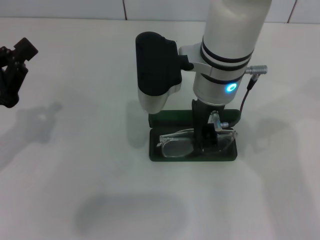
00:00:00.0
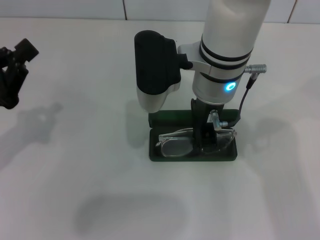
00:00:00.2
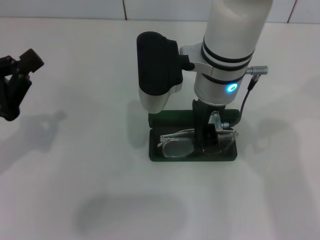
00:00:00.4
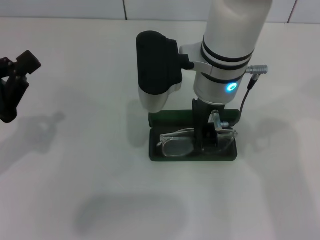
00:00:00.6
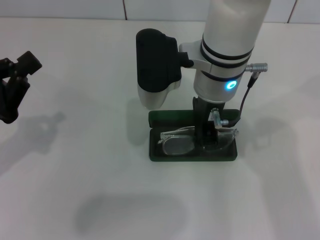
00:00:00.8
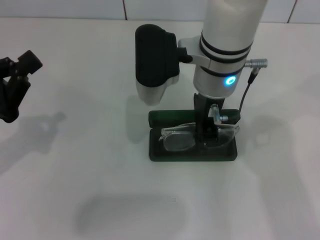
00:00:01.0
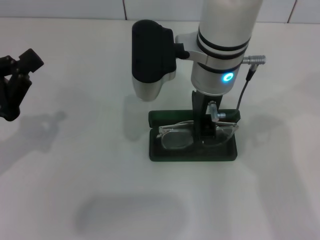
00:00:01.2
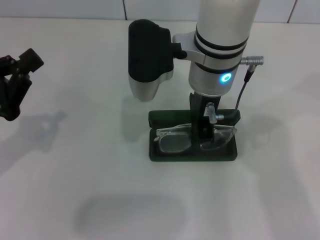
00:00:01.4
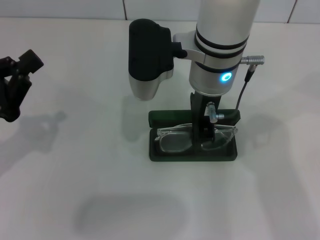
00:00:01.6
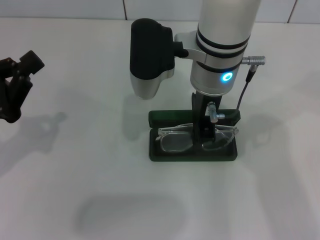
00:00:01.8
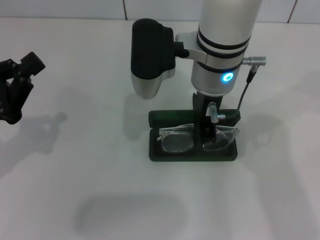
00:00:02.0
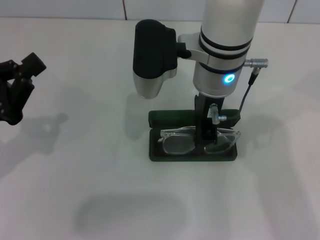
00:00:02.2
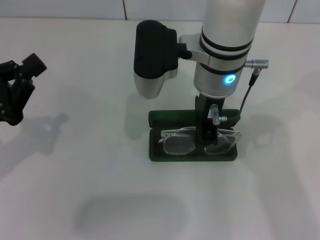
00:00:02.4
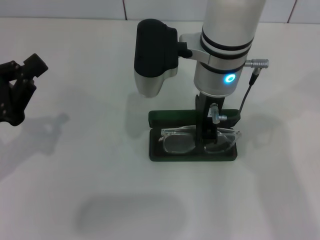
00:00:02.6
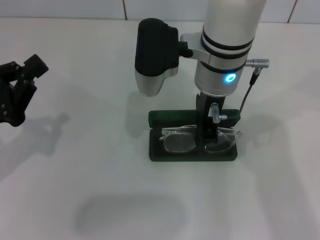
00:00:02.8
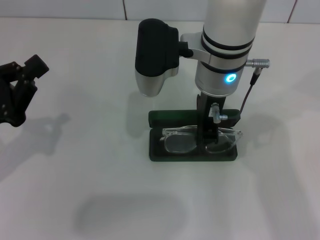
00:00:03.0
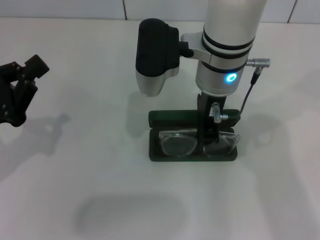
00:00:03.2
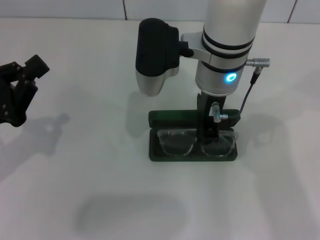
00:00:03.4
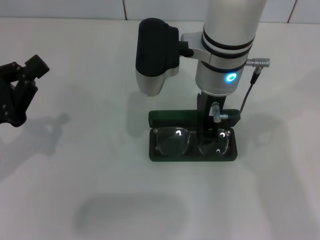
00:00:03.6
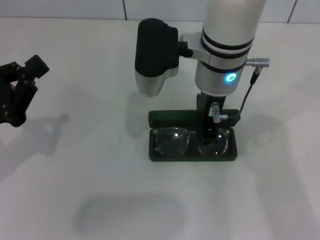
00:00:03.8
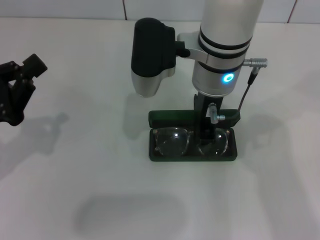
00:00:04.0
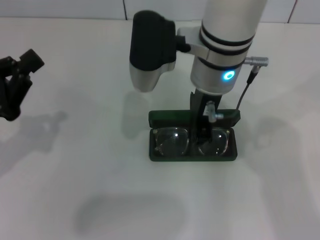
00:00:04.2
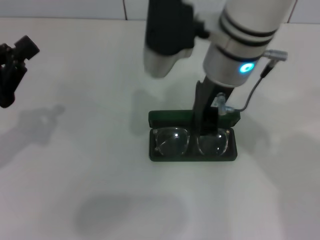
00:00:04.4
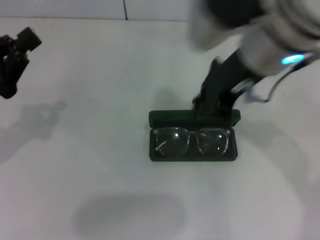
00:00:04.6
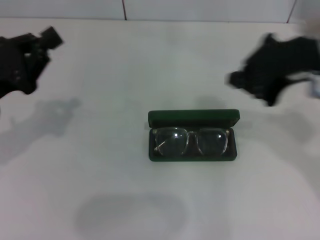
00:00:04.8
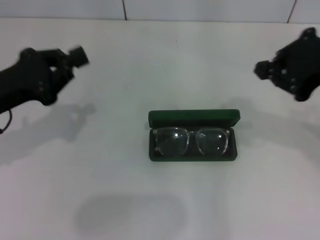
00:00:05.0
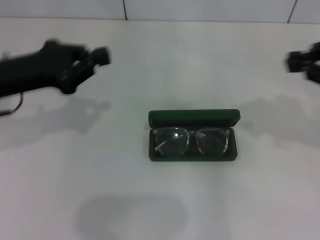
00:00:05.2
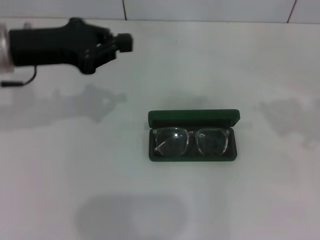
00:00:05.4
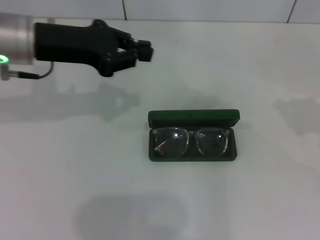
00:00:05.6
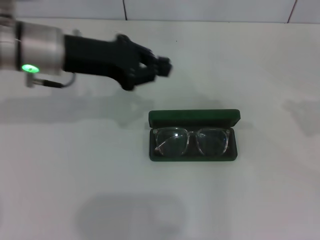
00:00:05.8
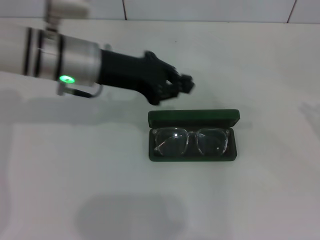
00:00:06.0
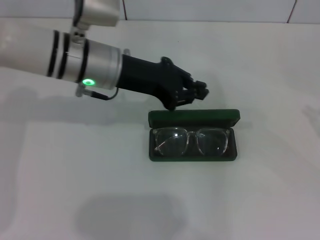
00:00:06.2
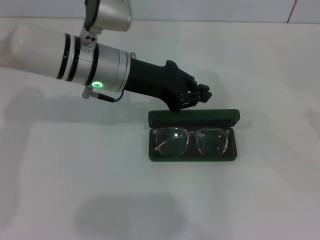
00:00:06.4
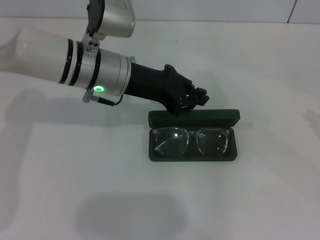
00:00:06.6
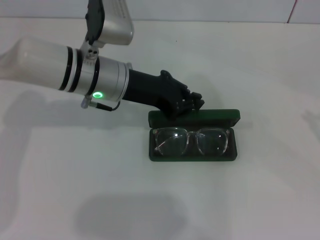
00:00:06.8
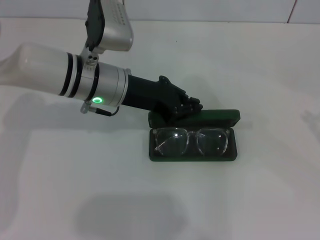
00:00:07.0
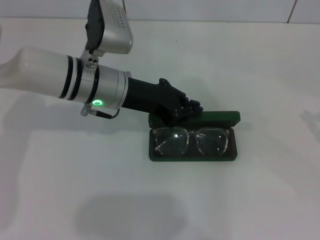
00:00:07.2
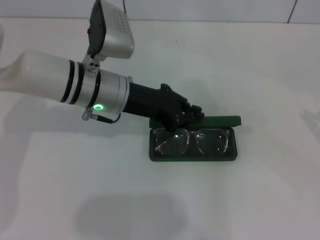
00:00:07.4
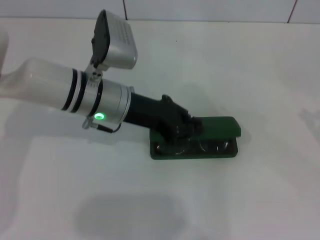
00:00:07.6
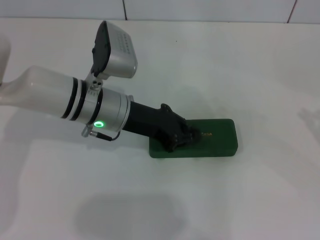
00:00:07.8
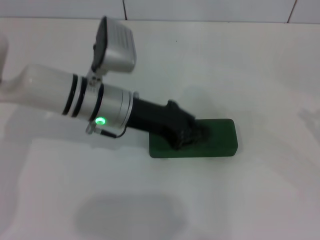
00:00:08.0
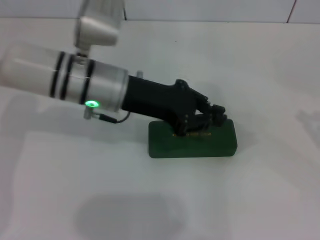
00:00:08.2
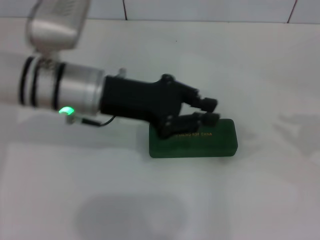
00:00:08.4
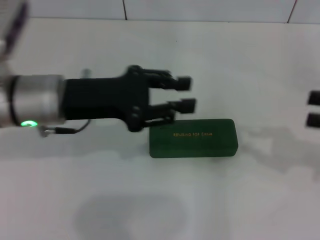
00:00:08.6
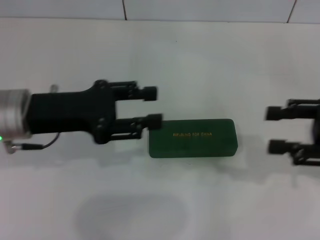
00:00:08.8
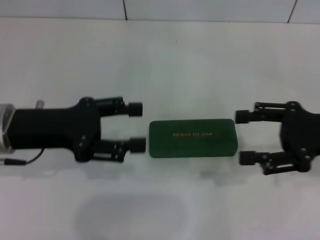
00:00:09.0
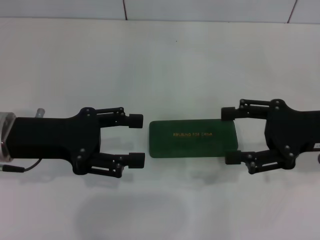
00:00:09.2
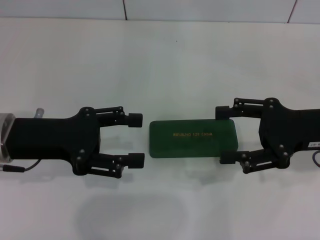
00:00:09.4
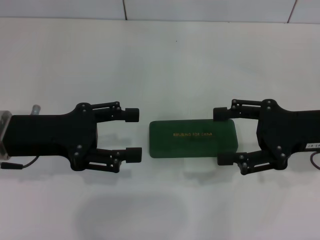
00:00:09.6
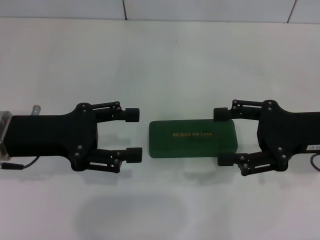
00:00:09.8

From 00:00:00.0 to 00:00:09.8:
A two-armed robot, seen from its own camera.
Step, from 00:00:00.0 to 00:00:03.6: Put the glasses into the case with your right hand.
Step, from 00:00:03.8 to 00:00:07.6: Close the glasses case with your left hand.
From 00:00:00.0 to 00:00:01.4: The grippers stay close to where they were, moving slightly.
From 00:00:01.4 to 00:00:02.8: Both grippers stay put.
From 00:00:02.8 to 00:00:04.2: The grippers stay close to where they were, moving slightly.
From 00:00:04.2 to 00:00:05.6: The right gripper moves to the right, about 35 cm; the left gripper heads forward, to the right and upward, covering roughly 20 cm.
From 00:00:05.6 to 00:00:07.0: The right gripper changes place by roughly 5 cm; the left gripper shifts about 10 cm to the right and downward.
From 00:00:07.0 to 00:00:08.4: The left gripper moves some 5 cm.
From 00:00:08.4 to 00:00:09.8: The right gripper travels to the left by roughly 15 cm, and opens up, while the left gripper is displaced to the left and backward by approximately 10 cm, and opens.

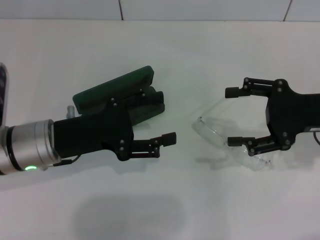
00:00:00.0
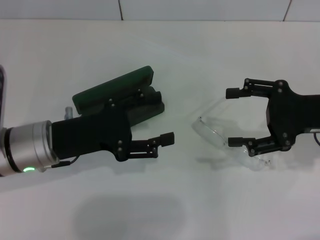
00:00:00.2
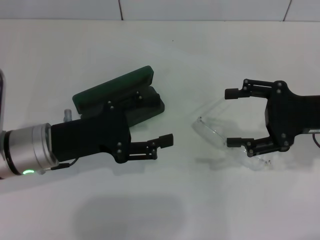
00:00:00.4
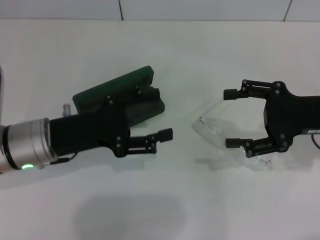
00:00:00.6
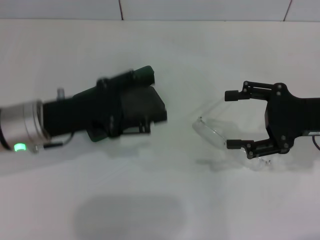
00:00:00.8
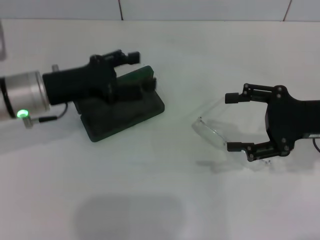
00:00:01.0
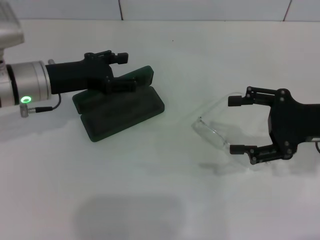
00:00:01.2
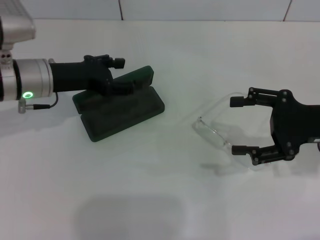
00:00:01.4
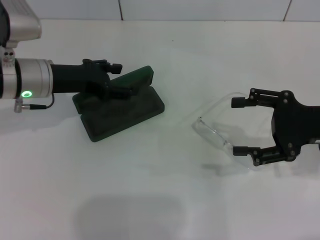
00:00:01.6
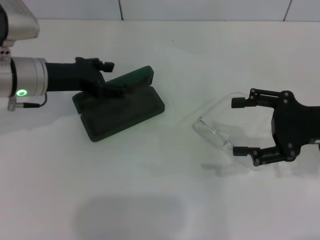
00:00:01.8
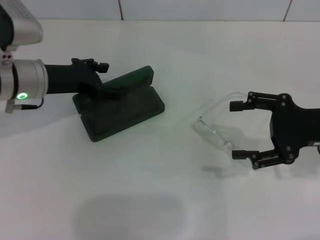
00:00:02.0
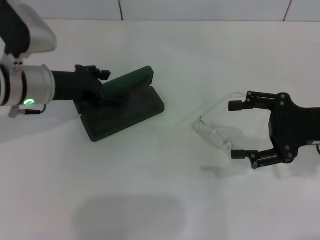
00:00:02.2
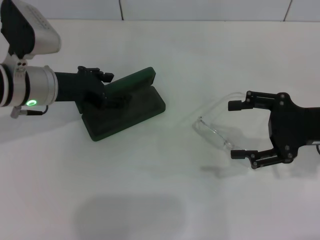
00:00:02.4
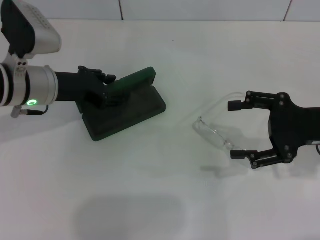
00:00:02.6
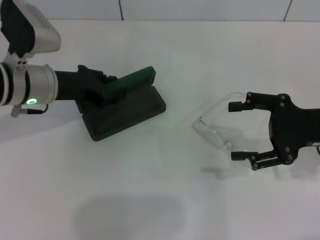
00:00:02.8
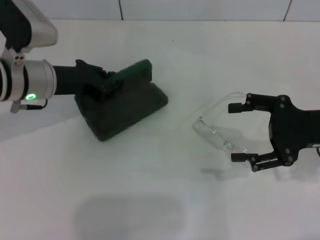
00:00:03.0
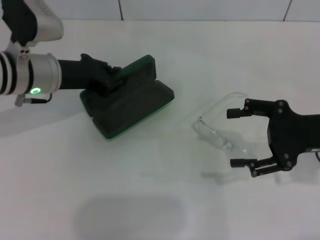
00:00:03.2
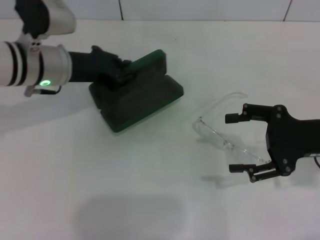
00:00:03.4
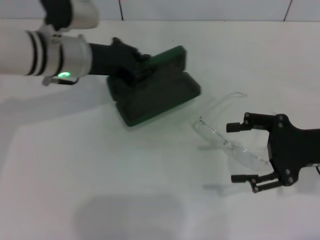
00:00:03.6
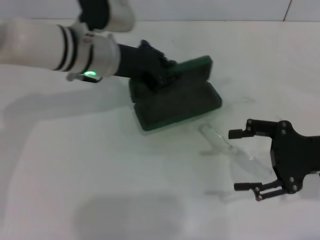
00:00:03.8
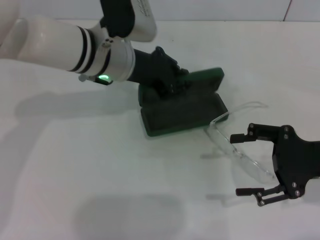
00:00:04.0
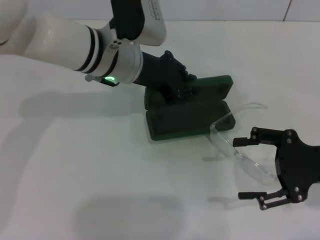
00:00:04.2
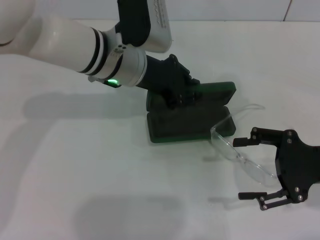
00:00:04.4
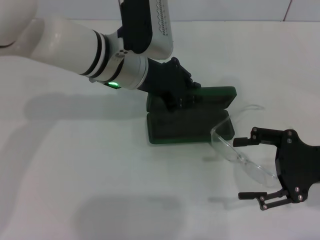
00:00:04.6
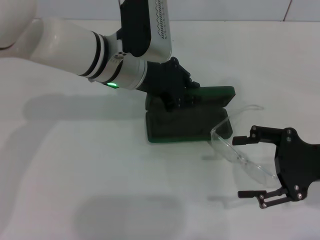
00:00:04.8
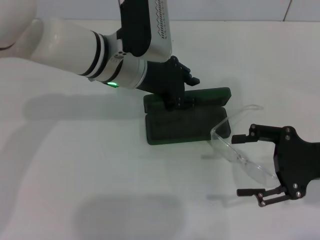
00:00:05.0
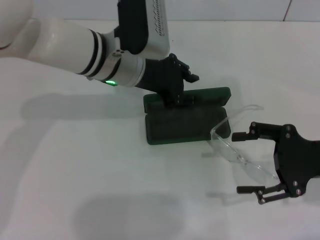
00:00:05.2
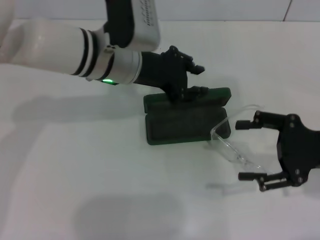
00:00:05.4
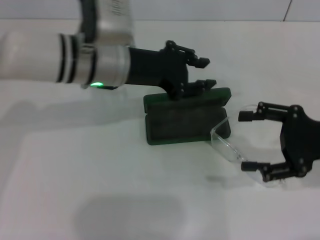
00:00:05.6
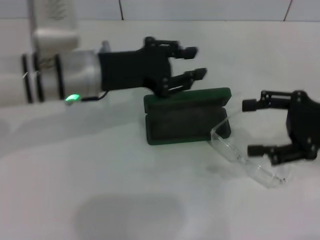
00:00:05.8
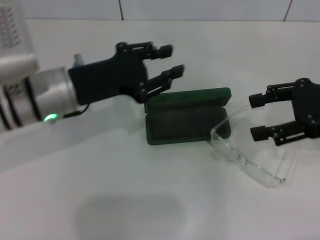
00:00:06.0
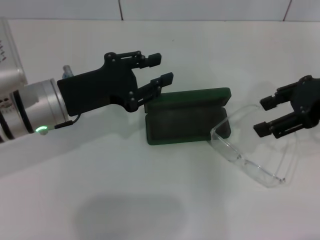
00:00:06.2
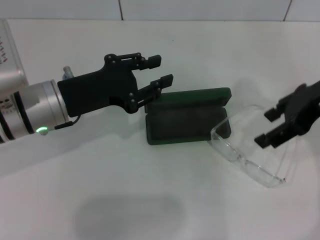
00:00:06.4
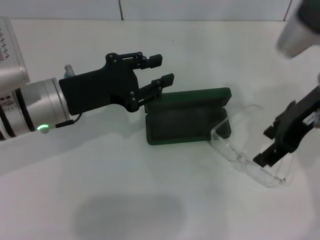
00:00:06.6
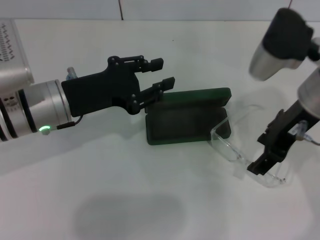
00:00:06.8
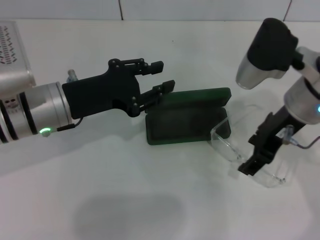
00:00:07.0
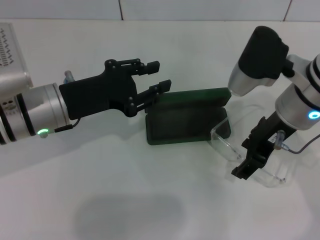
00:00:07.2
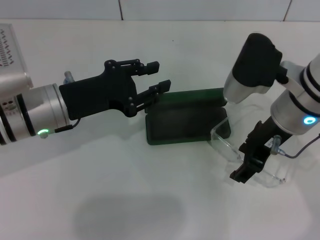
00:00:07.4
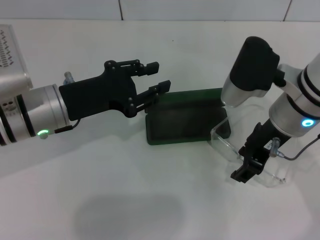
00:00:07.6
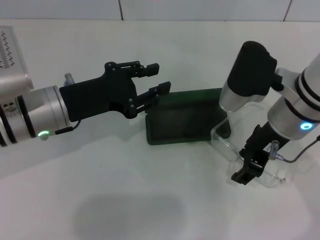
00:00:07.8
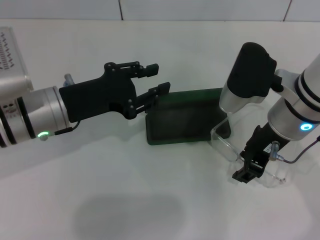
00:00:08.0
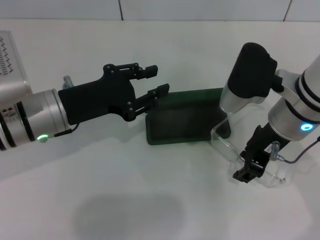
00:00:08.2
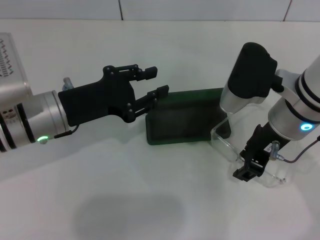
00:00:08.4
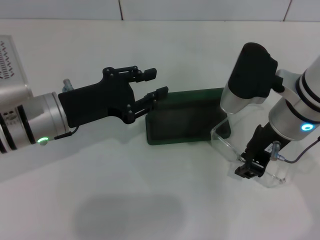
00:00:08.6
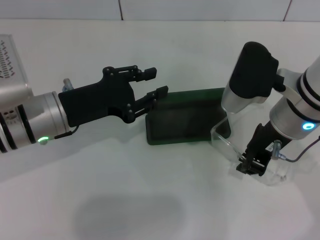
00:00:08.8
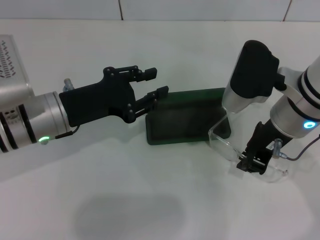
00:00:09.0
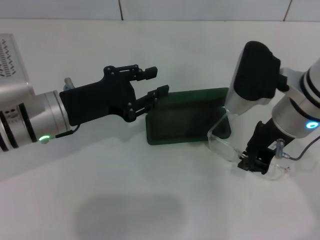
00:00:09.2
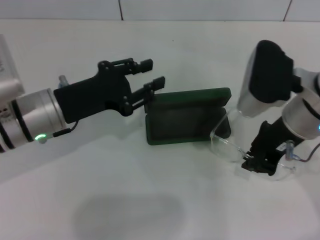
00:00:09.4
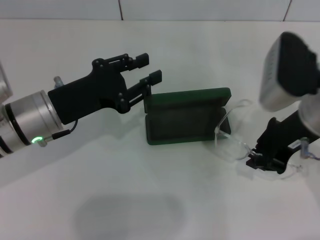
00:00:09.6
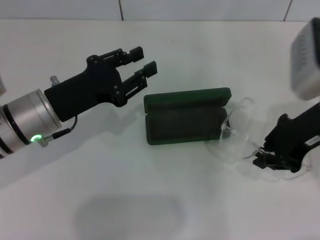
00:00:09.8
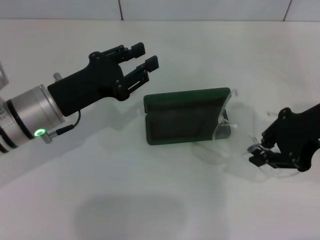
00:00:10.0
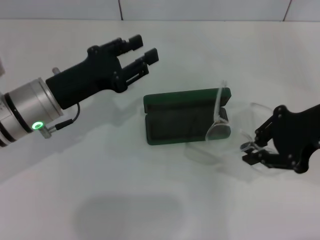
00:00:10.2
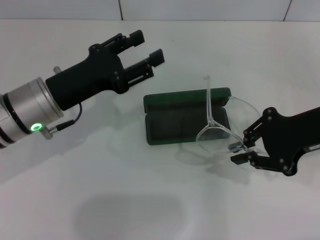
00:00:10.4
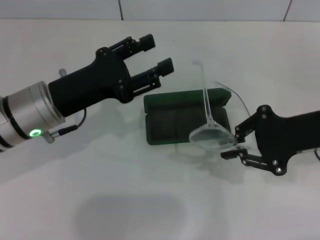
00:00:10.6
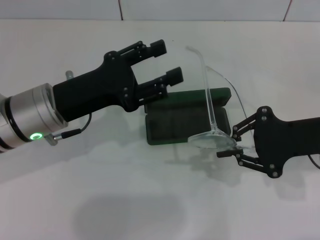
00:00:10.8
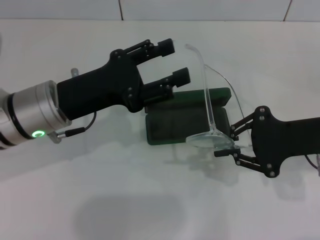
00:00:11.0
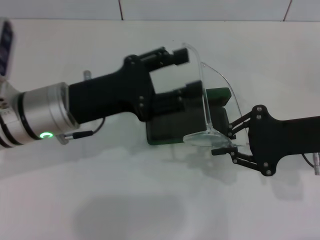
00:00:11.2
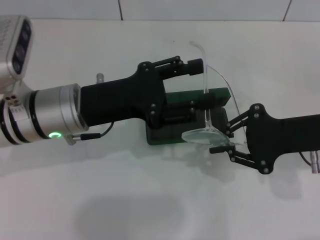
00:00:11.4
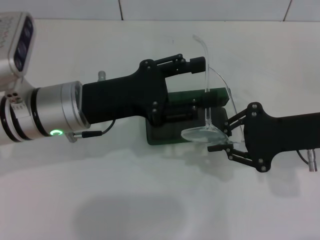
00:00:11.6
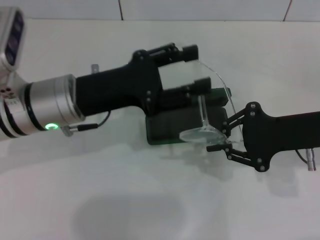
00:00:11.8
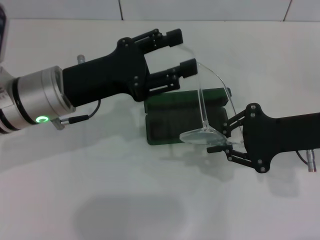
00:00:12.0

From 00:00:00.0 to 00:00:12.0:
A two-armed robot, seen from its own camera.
Step, from 00:00:00.0 to 00:00:02.8: Grab the glasses case with your left hand.
Step, from 00:00:03.2 to 00:00:04.8: Place the glasses case in the center of the table with your left hand.
Step, from 00:00:05.0 to 00:00:08.8: Grab the eyeglass frame with your right hand.
From 00:00:00.0 to 00:00:01.6: The left gripper is displaced forward by about 10 cm.
From 00:00:01.6 to 00:00:03.0: The left gripper closes its fingers.
From 00:00:03.0 to 00:00:04.4: The left gripper is displaced to the right by roughly 15 cm.
From 00:00:04.4 to 00:00:06.0: The right gripper goes roughly 10 cm upward; the left gripper heads to the left and backward, covering about 10 cm.
From 00:00:06.0 to 00:00:07.6: The right gripper goes approximately 15 cm to the left.
From 00:00:07.6 to 00:00:09.0: The right gripper closes.
From 00:00:09.0 to 00:00:10.4: The right gripper shifts roughly 10 cm to the right.
